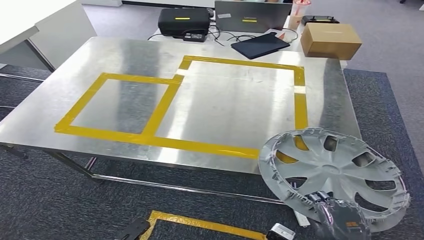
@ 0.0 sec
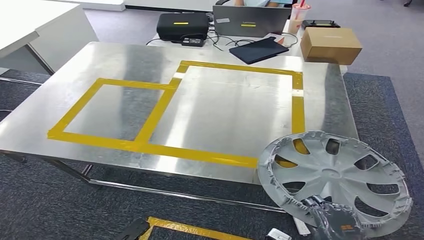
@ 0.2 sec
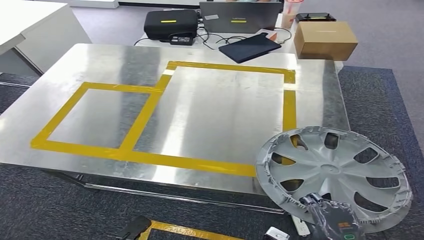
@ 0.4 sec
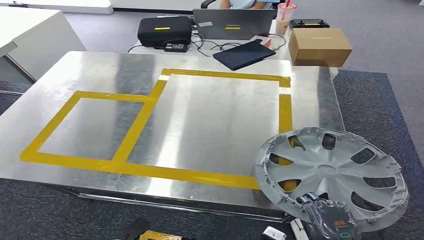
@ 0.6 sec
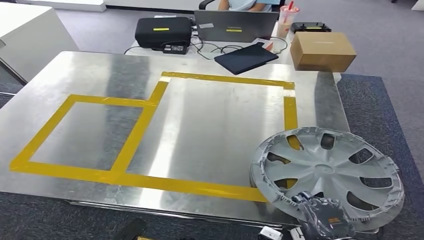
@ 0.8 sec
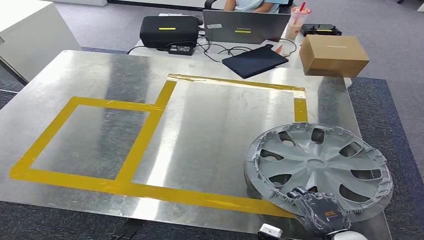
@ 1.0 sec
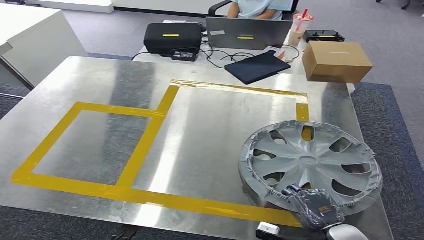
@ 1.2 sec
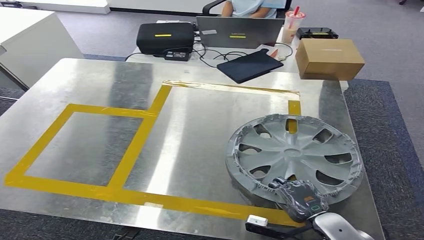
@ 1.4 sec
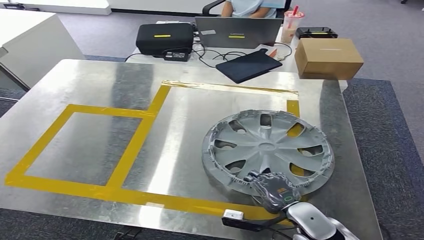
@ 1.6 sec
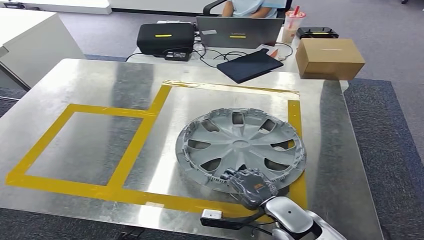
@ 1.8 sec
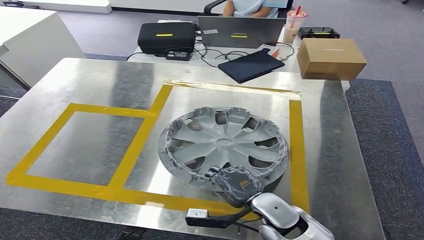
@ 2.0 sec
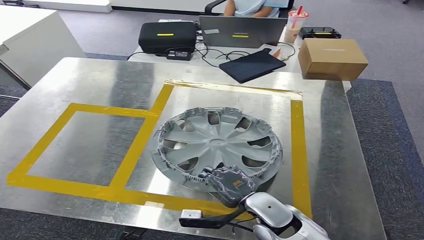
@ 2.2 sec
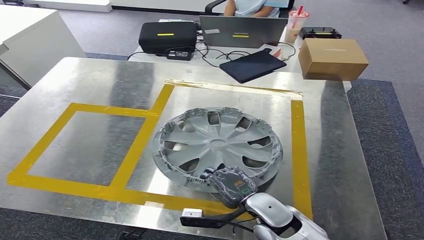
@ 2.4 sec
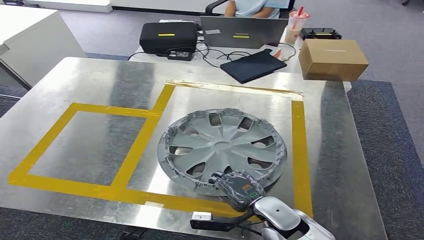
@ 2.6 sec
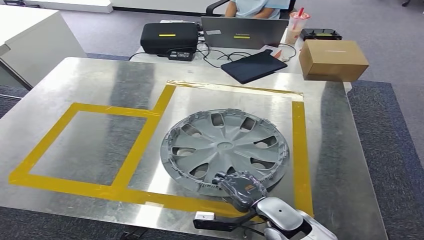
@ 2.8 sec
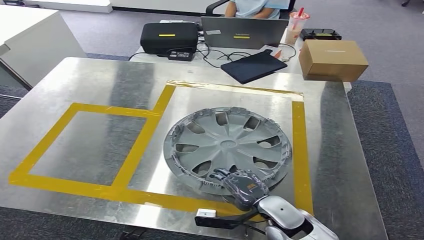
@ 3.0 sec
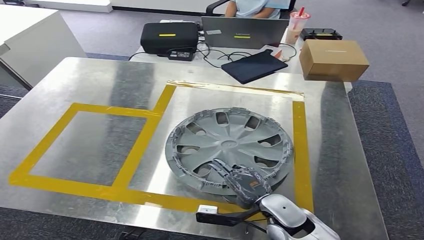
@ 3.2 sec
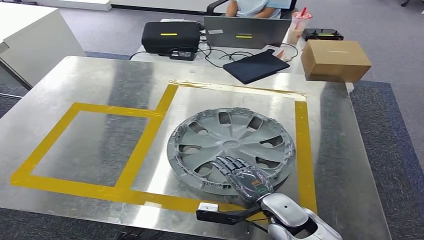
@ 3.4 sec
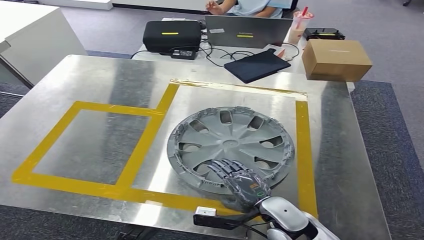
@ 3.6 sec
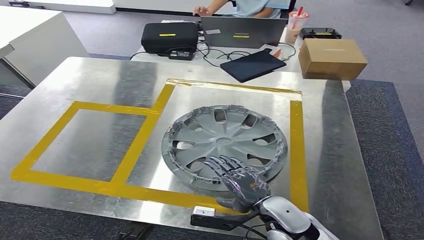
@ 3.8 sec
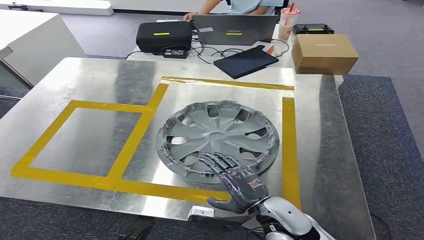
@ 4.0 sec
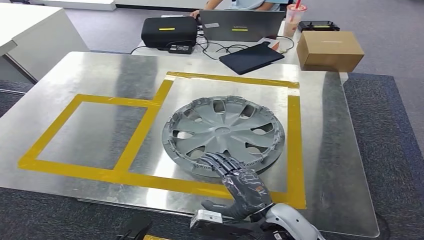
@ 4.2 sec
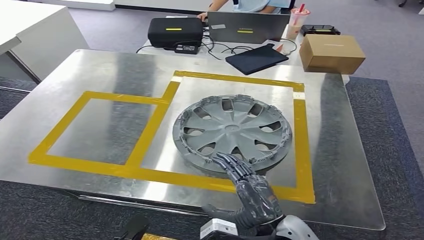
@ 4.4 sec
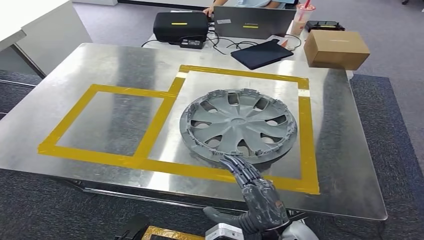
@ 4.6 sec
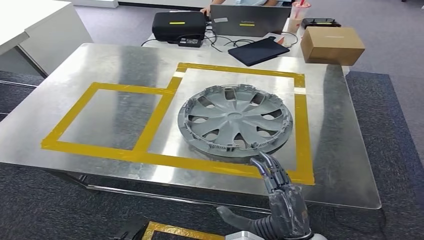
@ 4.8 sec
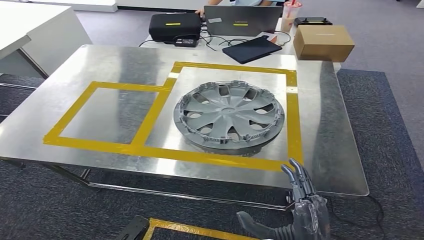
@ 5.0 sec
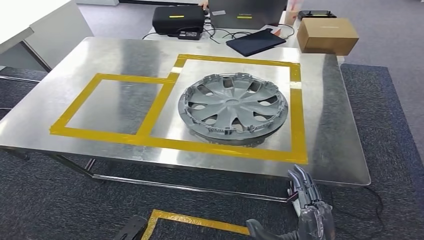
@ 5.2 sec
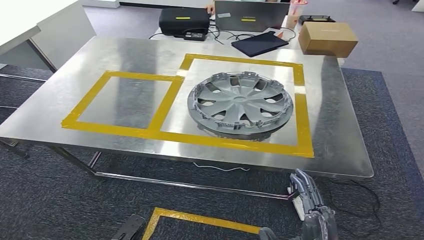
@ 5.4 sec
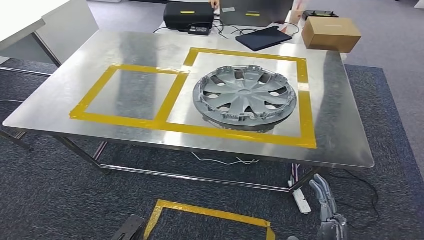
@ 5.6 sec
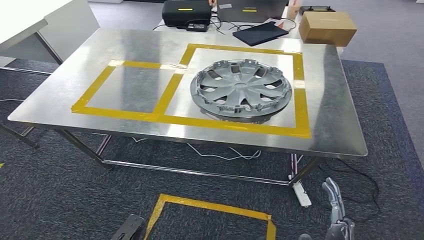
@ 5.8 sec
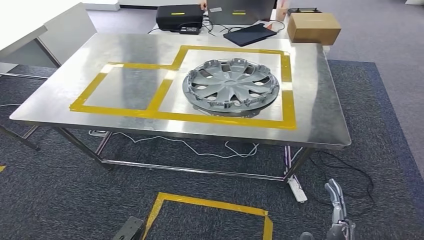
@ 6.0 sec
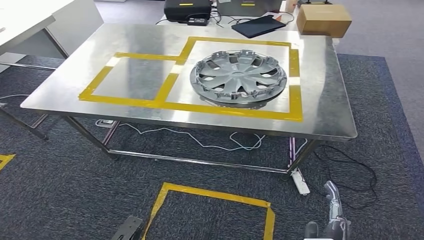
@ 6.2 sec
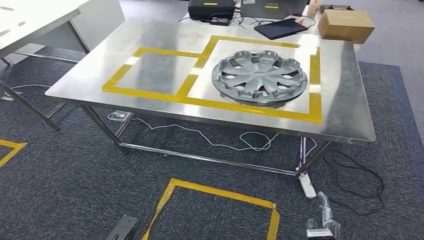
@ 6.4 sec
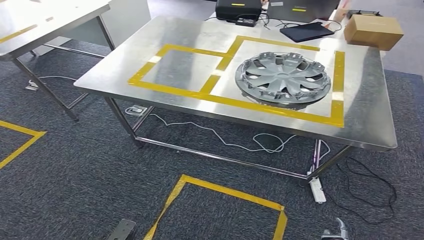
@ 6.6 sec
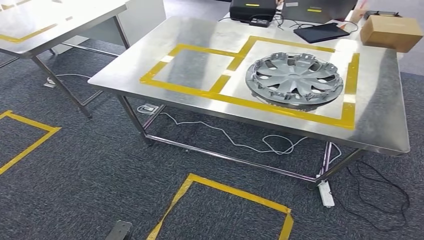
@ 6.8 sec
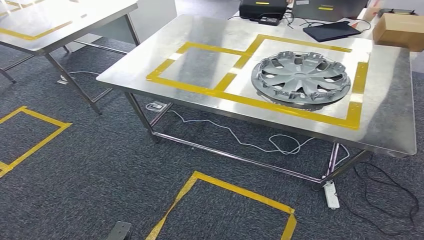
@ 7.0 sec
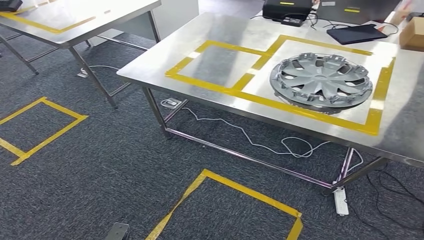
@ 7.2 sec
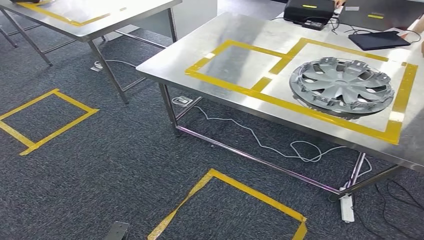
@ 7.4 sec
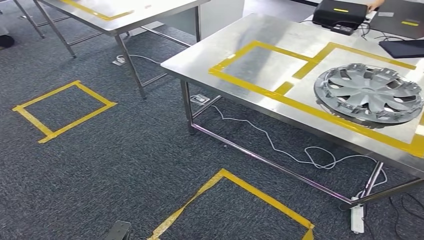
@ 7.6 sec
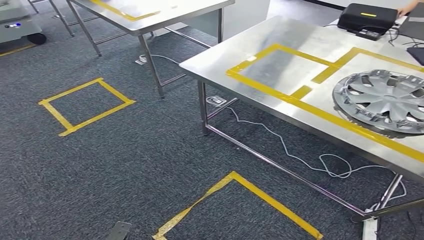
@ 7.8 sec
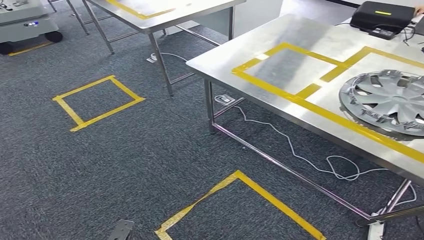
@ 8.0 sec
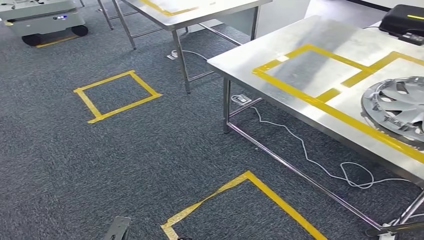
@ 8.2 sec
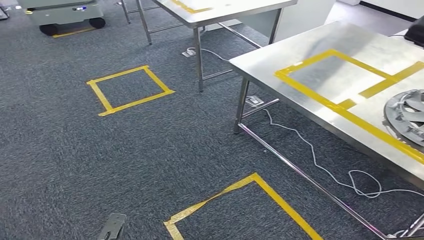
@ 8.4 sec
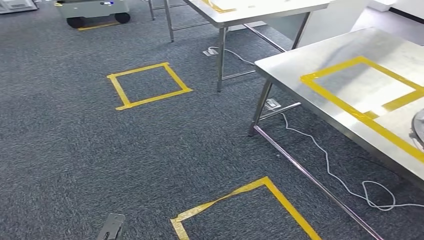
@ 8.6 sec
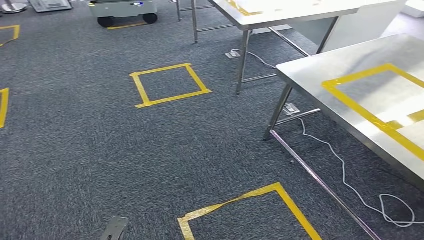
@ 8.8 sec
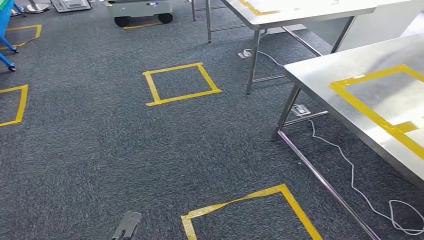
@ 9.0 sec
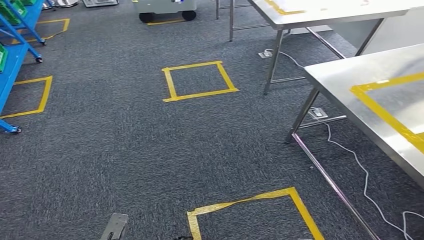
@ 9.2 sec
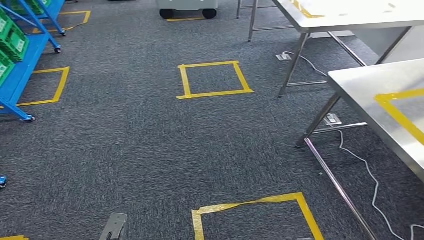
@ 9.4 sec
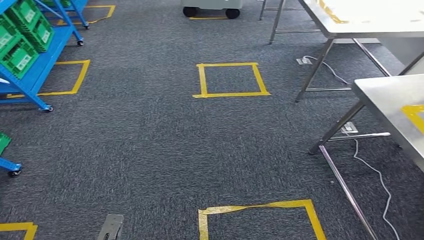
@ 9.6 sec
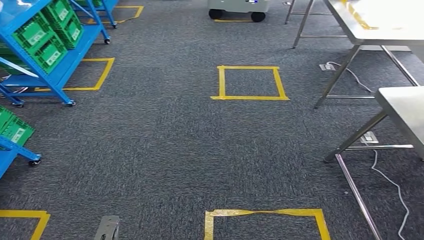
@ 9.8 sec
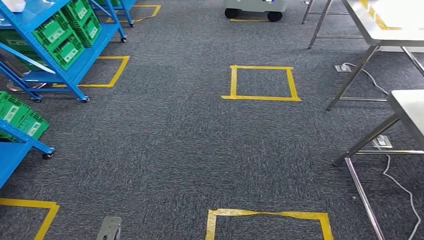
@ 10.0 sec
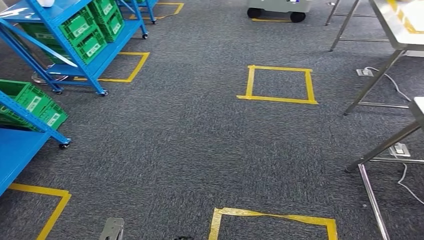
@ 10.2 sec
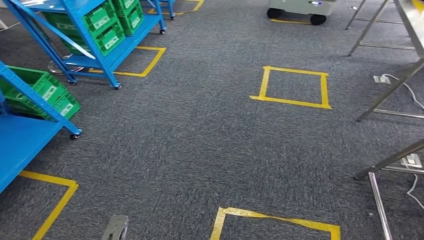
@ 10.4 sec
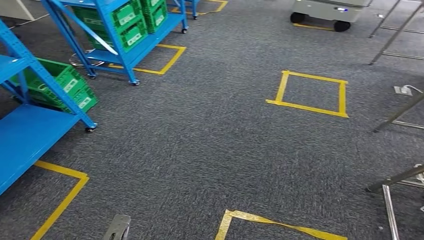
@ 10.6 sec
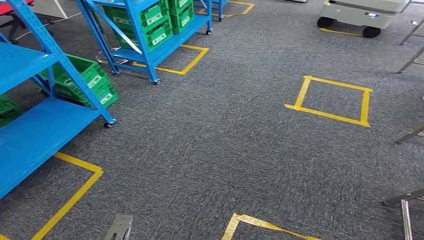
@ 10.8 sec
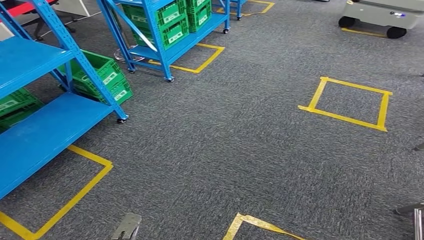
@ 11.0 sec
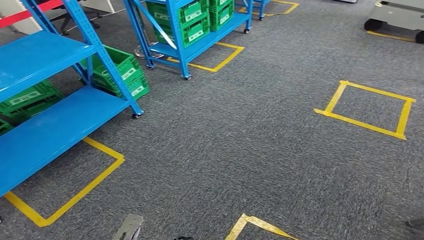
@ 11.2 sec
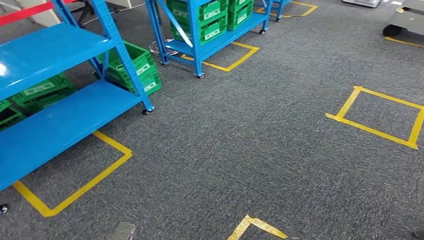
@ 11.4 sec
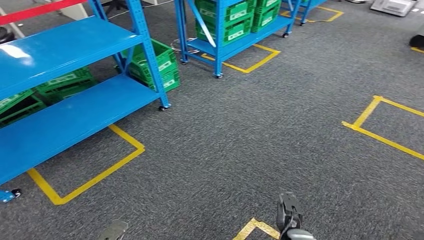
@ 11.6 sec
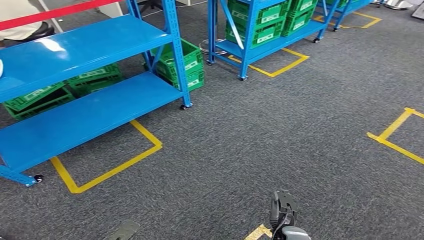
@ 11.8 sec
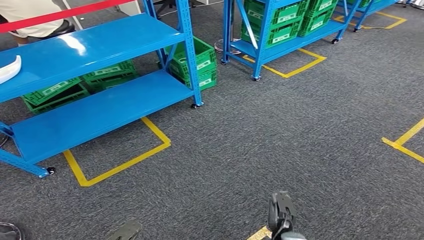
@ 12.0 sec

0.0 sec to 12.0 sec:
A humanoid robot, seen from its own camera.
Step, 0.0 sec to 4.2 sec: Insert the small component into the corresponding slot on the workbench.

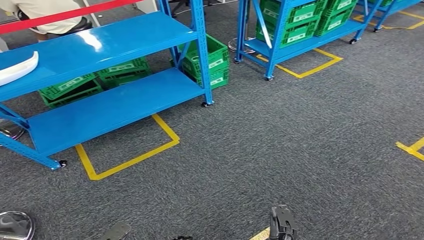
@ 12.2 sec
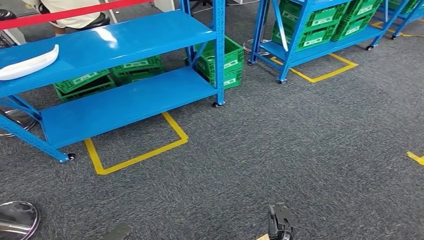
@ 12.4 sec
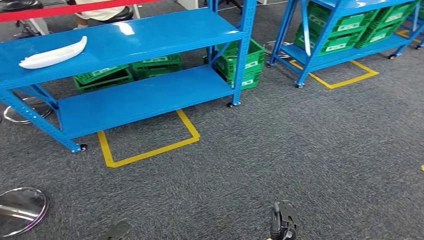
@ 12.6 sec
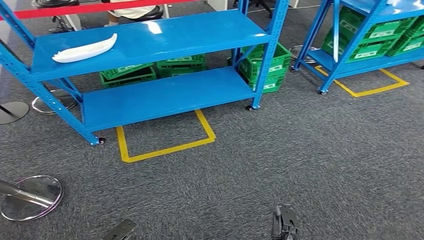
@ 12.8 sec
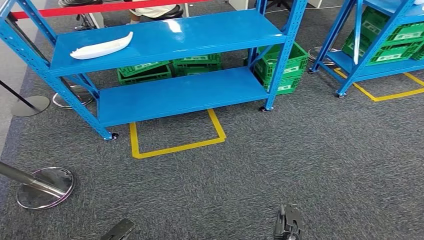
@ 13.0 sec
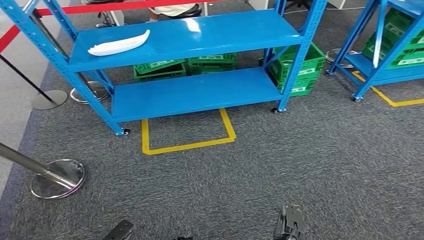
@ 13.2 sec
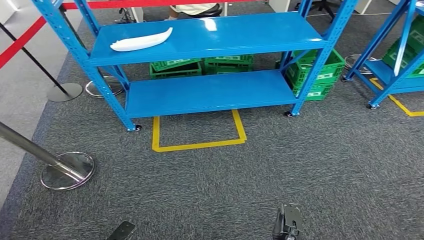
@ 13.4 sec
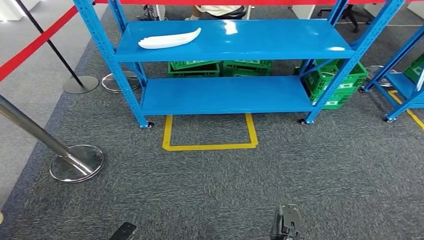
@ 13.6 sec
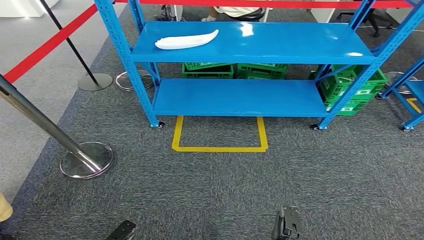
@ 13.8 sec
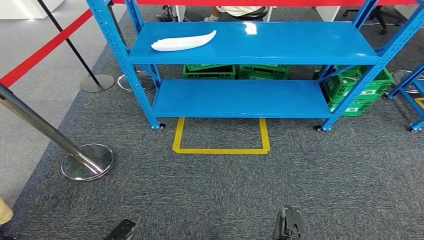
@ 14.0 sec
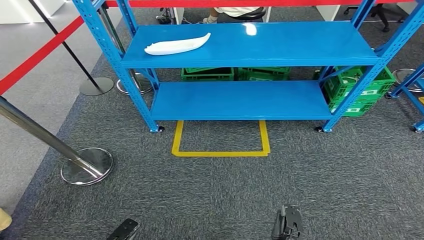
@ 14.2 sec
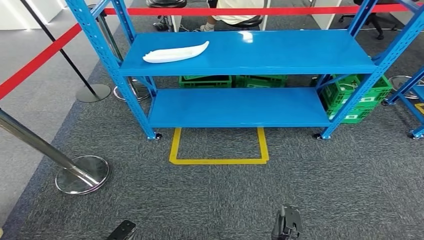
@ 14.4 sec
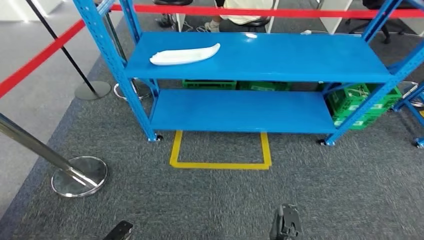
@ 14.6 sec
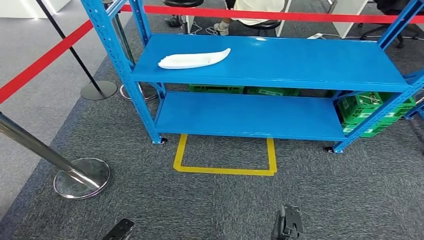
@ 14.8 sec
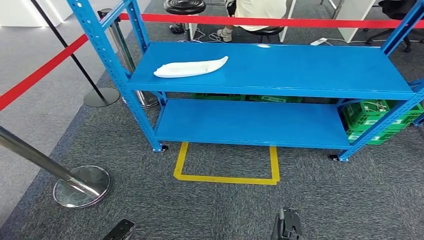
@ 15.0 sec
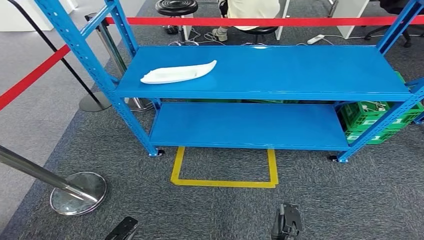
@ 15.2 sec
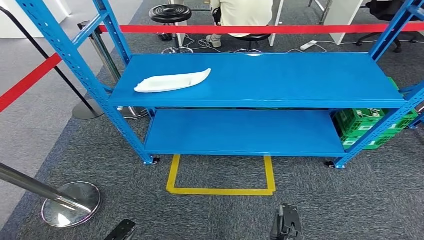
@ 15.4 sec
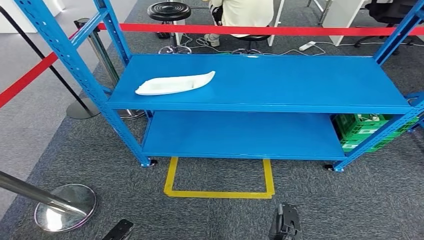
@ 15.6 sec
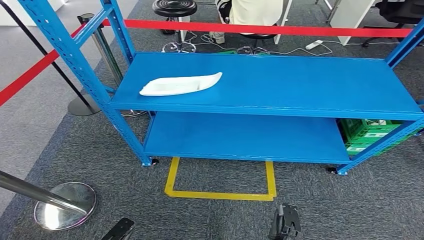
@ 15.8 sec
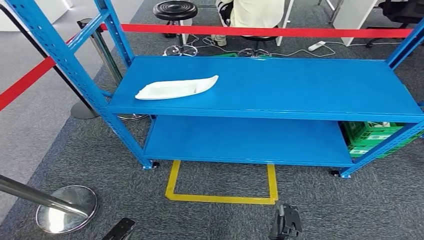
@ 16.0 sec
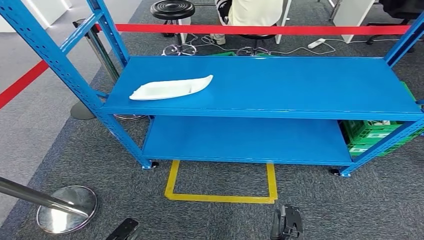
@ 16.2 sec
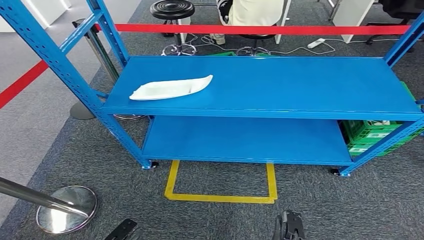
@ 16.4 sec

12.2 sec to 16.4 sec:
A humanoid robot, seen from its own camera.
Step, 12.2 sec to 16.4 sec: Return to the initial position at the workbench.
